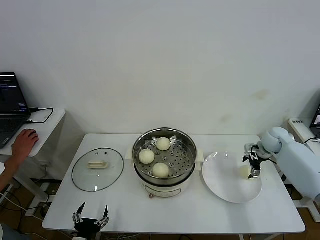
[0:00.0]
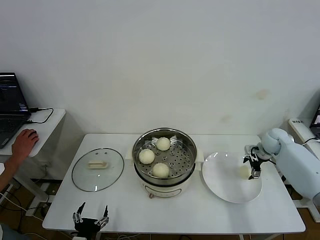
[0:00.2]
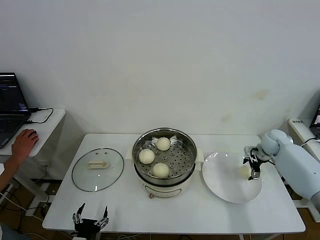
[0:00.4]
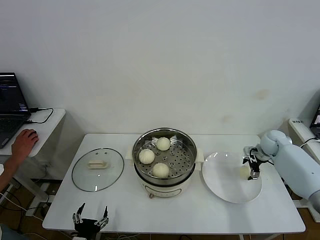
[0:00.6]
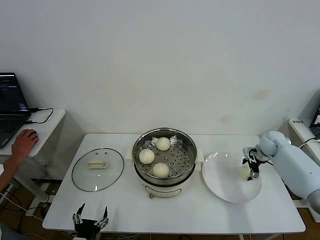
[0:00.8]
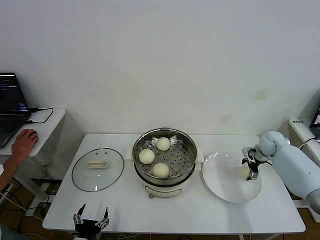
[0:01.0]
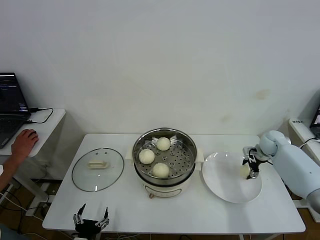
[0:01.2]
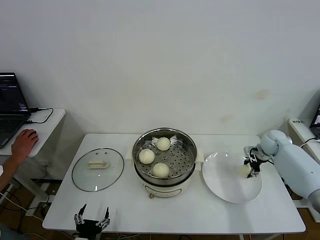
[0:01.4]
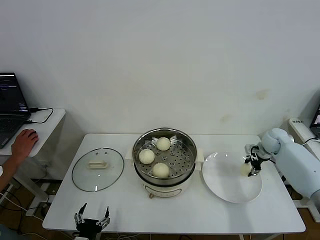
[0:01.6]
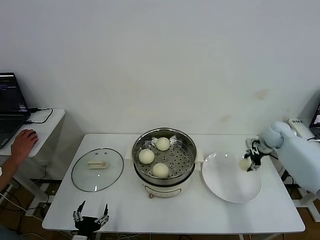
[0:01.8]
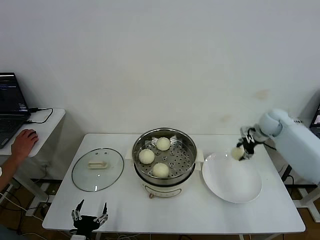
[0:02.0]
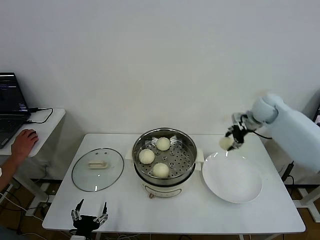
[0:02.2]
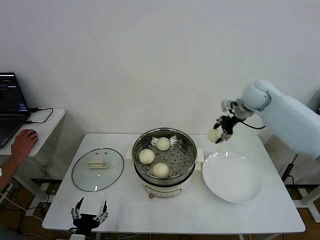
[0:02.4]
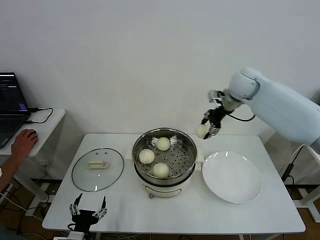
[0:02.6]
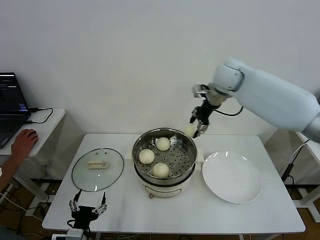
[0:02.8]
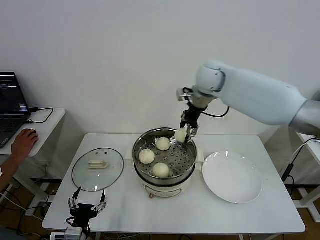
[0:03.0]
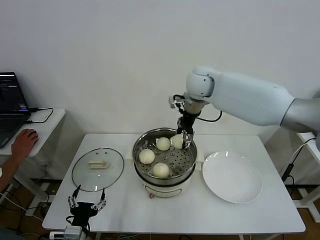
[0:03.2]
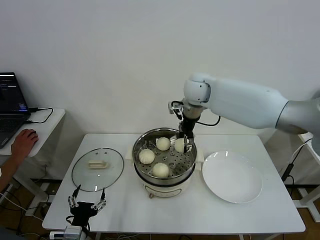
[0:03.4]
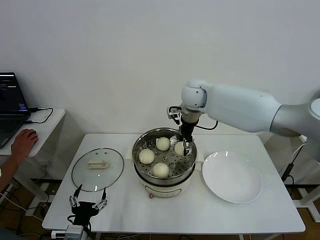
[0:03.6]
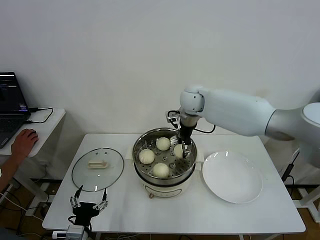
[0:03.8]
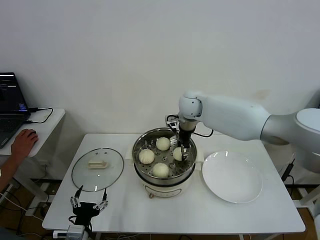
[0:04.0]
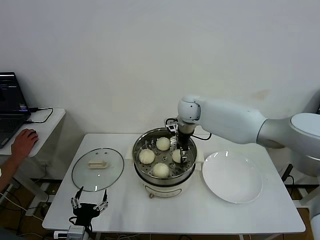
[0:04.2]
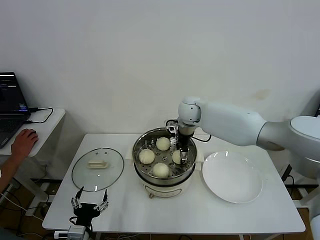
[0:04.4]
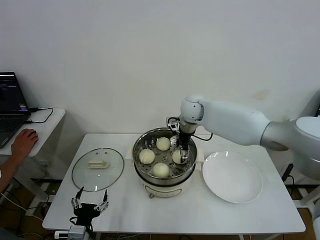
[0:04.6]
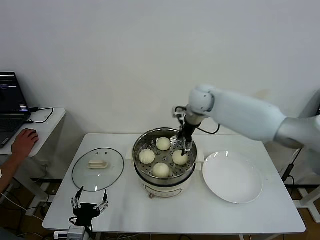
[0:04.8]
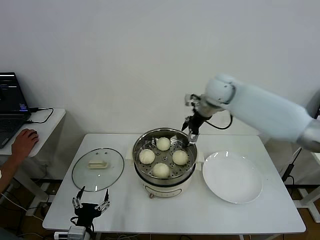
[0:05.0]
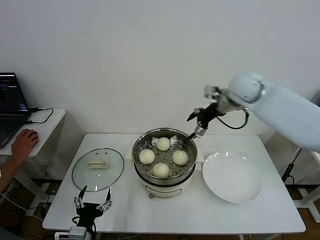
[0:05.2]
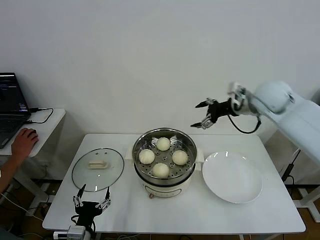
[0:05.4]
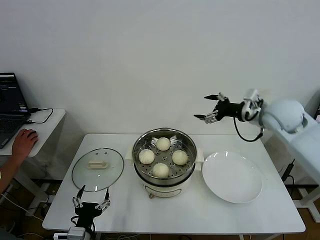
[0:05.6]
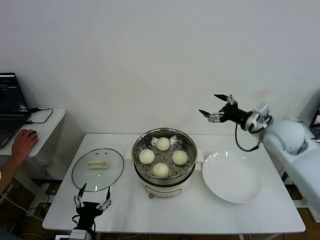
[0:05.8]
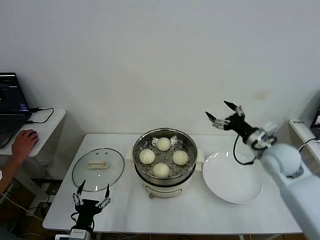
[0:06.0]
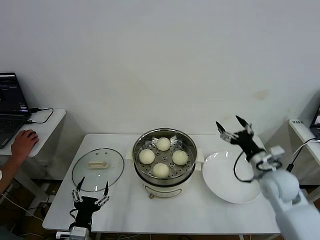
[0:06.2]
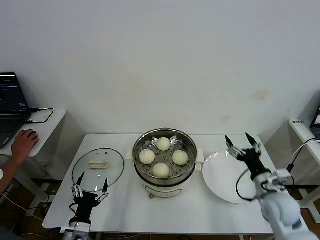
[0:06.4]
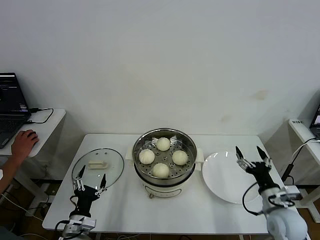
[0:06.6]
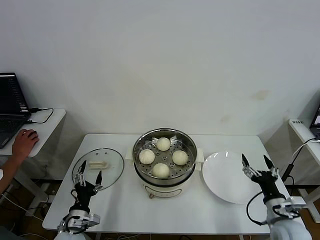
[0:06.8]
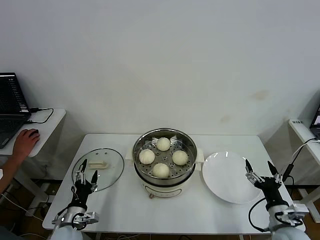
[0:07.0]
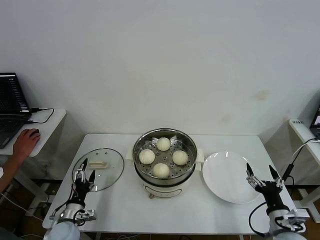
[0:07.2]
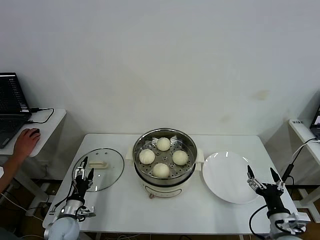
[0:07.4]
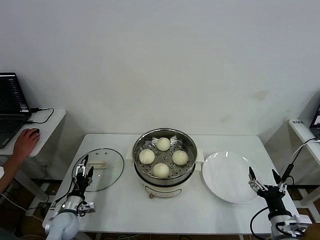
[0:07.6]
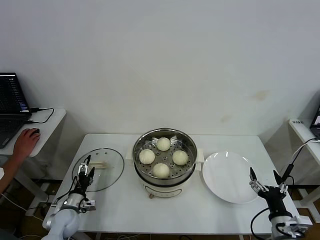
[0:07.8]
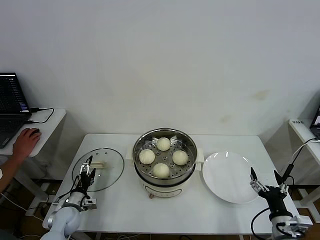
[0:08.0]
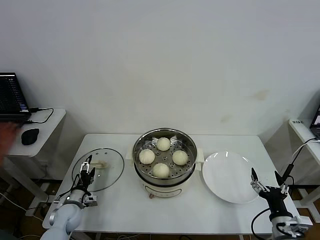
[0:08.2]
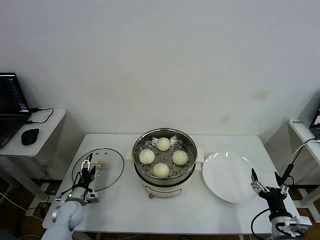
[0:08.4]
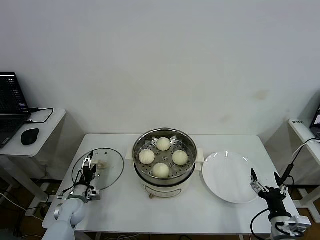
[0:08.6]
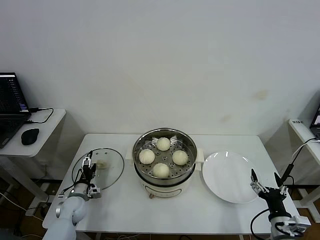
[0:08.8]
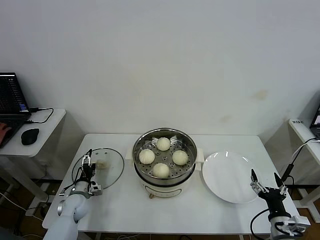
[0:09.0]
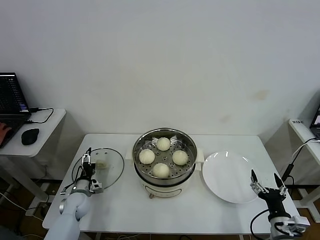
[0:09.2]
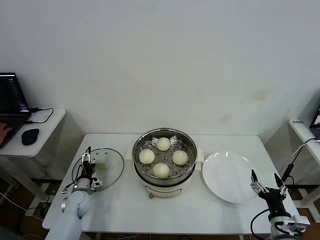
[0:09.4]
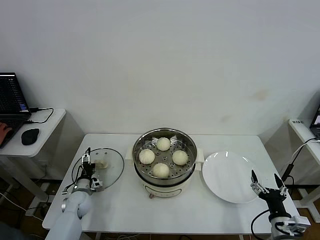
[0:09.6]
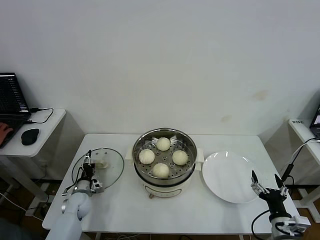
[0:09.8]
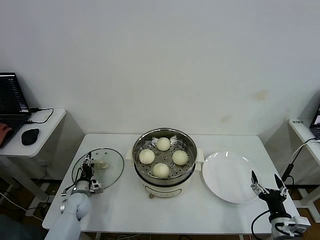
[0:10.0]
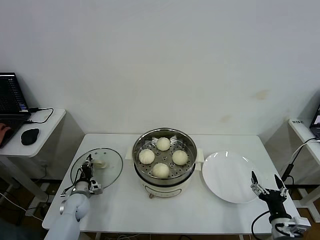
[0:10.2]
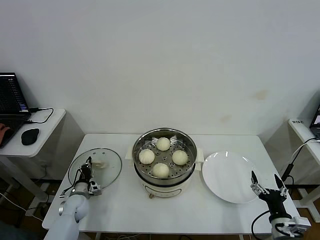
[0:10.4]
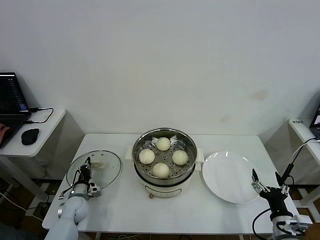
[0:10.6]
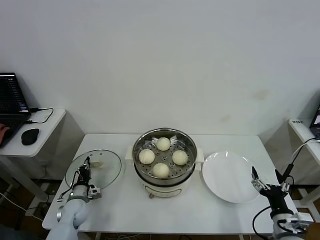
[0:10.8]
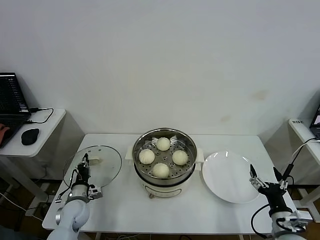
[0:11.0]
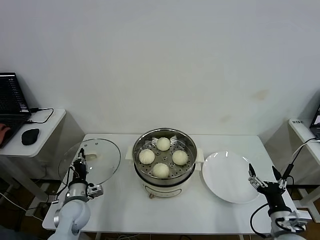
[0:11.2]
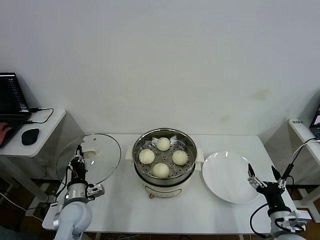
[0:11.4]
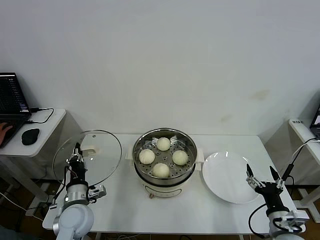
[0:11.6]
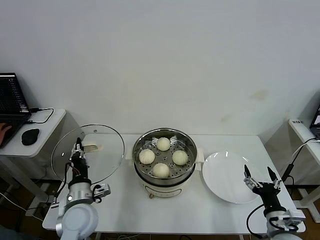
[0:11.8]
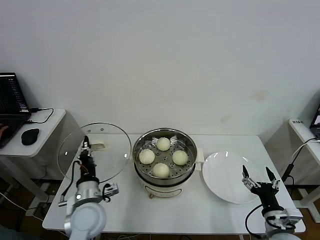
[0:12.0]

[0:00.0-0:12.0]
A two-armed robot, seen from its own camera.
Step, 0:01.6 to 0:04.4: Place the baozi on the steamer with right gripper.
Step, 0:04.8 to 0:10.6: Grasp the pot lid with left gripper.
0:00.0 to 0:01.6: The right gripper closes its fingers.
0:01.6 to 0:03.0: The right gripper shifts roughly 40 cm to the left and upward.
0:03.0 to 0:04.4: The right gripper is displaced downward by roughly 15 cm.
0:04.4 to 0:06.0: The right gripper travels to the right and backward by about 30 cm, and opens its fingers.
0:06.0 to 0:07.6: The left gripper travels forward, to the left and downward by about 20 cm. The right gripper shifts some 30 cm backward and downward.
0:07.6 to 0:09.0: The left gripper shifts about 10 cm forward.
0:09.0 to 0:10.4: The left gripper closes.
0:10.4 to 0:12.0: The left gripper travels upward, to the right and backward by roughly 25 cm.

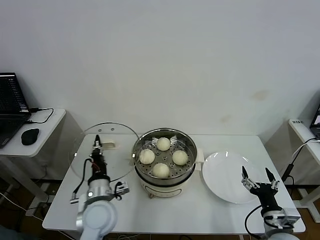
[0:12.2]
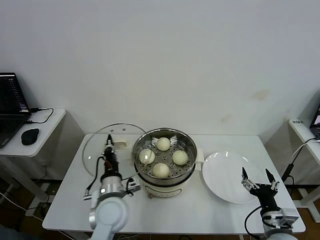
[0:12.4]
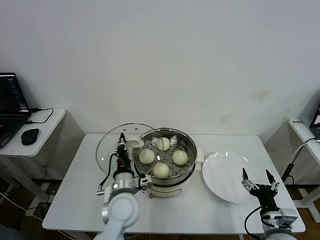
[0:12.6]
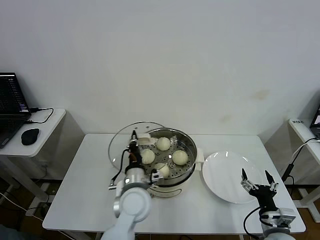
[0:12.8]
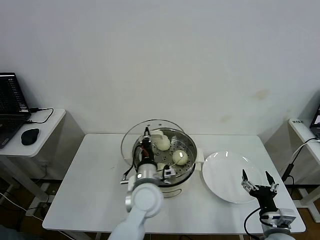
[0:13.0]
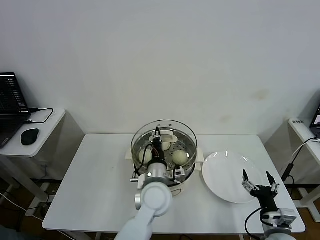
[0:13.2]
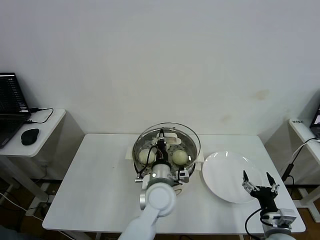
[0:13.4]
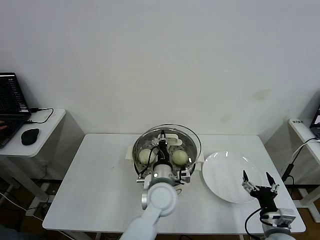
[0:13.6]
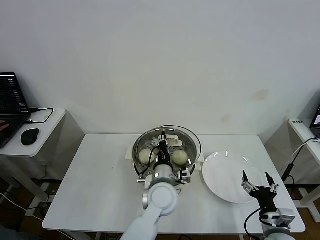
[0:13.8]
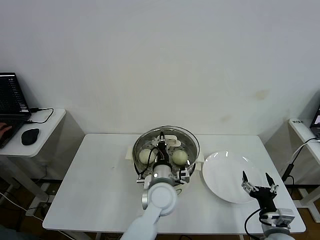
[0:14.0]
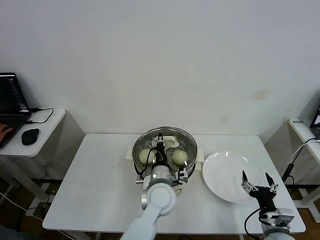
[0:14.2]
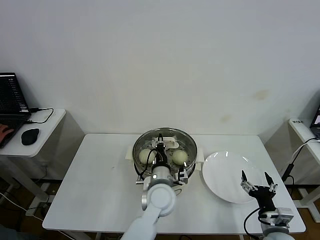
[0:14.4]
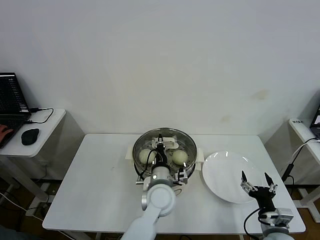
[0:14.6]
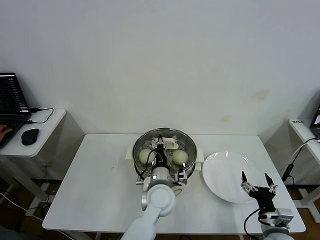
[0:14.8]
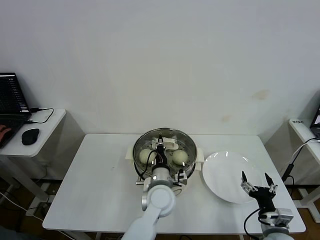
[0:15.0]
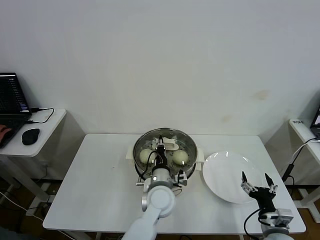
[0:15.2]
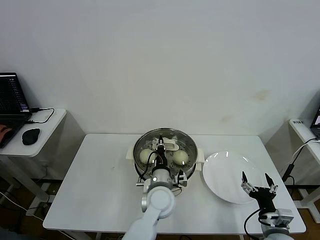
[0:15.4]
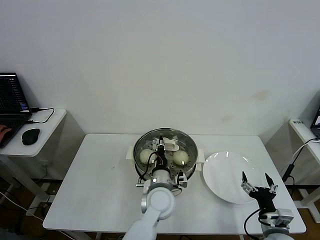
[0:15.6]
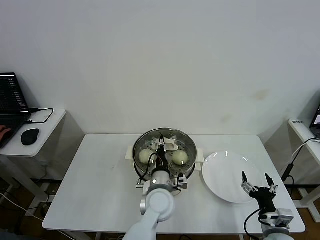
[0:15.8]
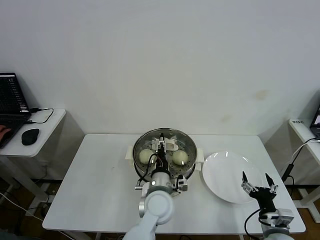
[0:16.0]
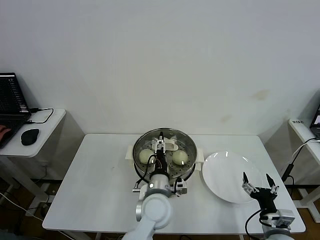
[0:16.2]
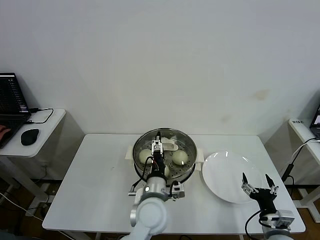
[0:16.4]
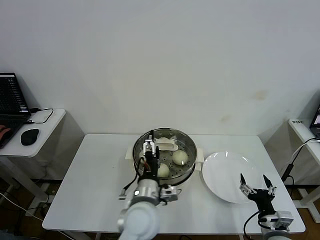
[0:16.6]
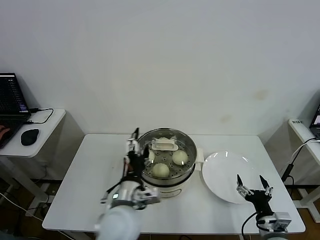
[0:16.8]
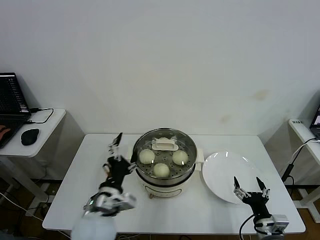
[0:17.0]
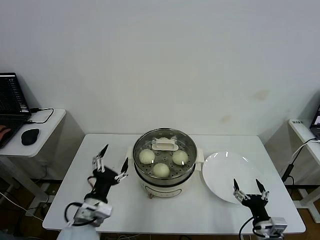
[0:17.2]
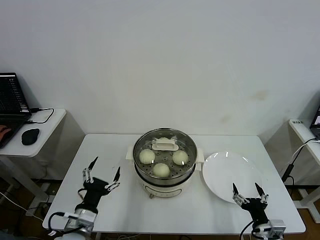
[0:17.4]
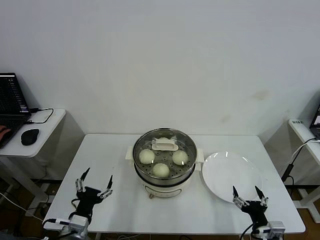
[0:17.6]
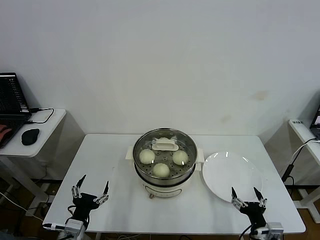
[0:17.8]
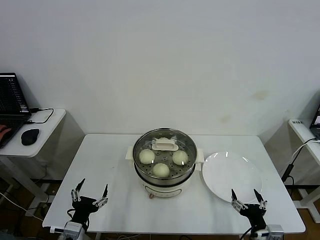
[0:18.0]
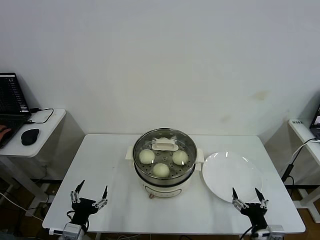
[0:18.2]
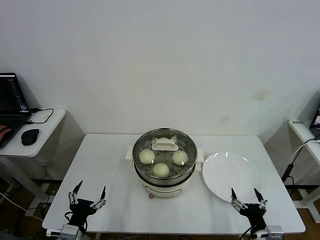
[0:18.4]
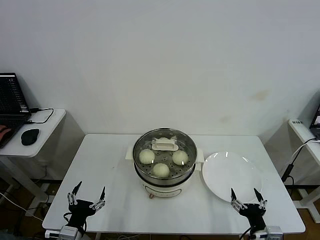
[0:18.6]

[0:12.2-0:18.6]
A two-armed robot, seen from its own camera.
Step, 0:12.2 to 0:15.8: Place the pot lid on the steamer with left gripper.
0:12.2 to 0:13.8: The left gripper travels to the right by some 20 cm.
0:13.8 to 0:15.4: The grippers make only small movements.
0:15.4 to 0:17.0: The left gripper moves to the left, backward and upward, approximately 20 cm, and opens its fingers.
0:17.0 to 0:18.6: The left gripper travels to the left, downward and backward by roughly 20 cm.

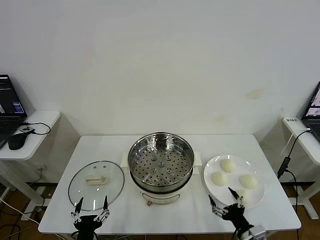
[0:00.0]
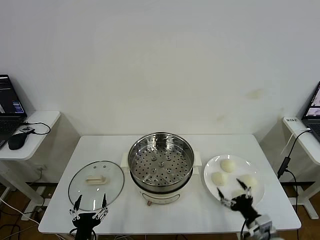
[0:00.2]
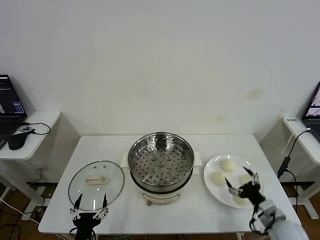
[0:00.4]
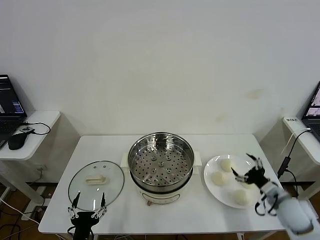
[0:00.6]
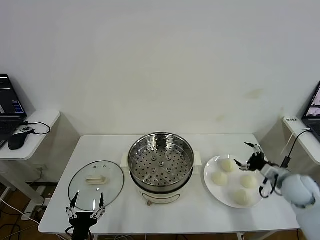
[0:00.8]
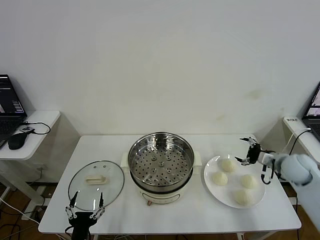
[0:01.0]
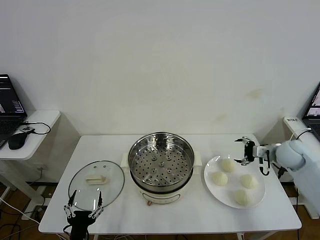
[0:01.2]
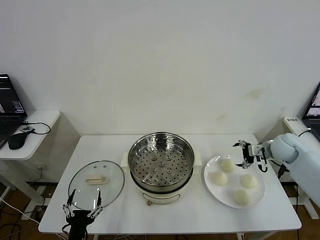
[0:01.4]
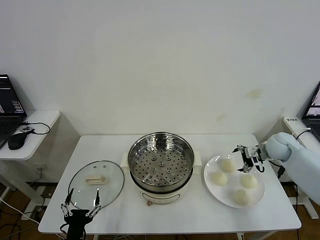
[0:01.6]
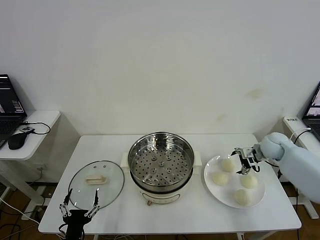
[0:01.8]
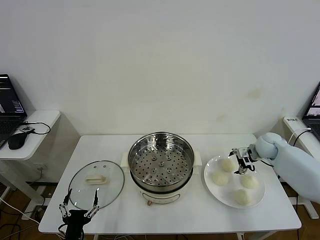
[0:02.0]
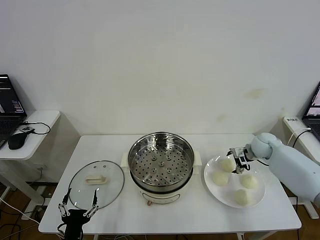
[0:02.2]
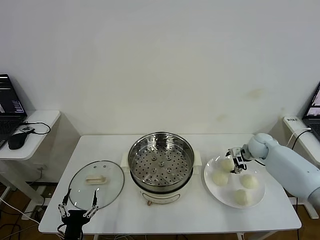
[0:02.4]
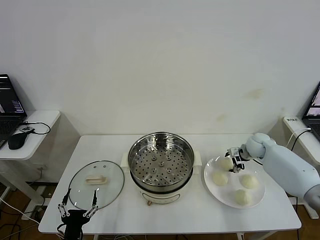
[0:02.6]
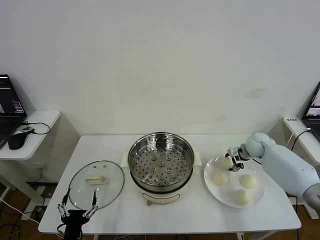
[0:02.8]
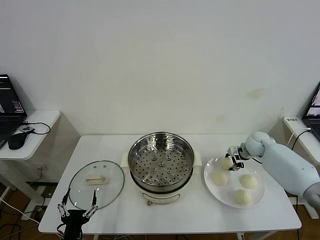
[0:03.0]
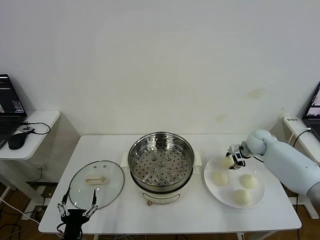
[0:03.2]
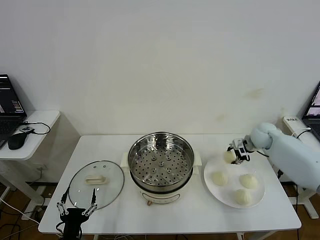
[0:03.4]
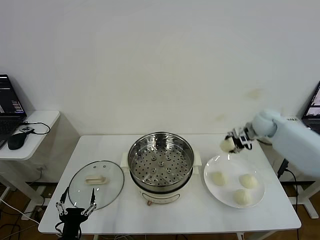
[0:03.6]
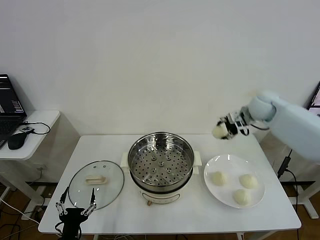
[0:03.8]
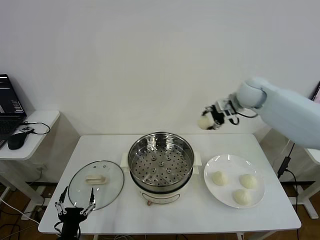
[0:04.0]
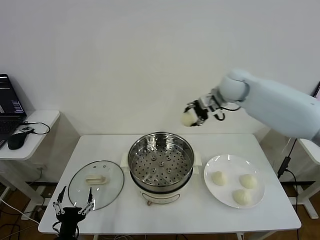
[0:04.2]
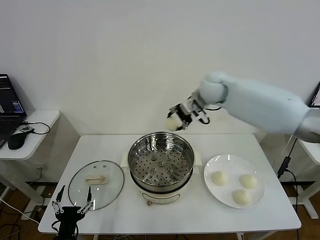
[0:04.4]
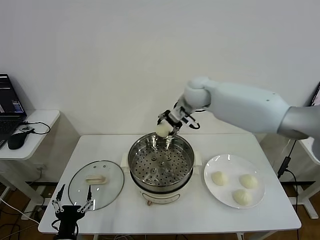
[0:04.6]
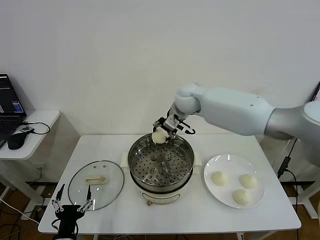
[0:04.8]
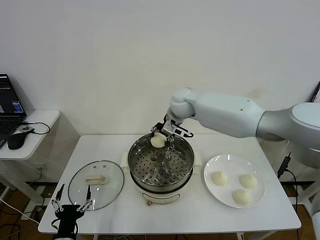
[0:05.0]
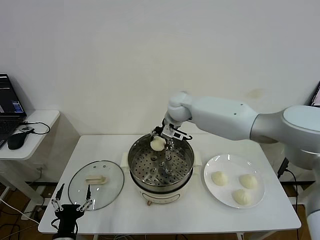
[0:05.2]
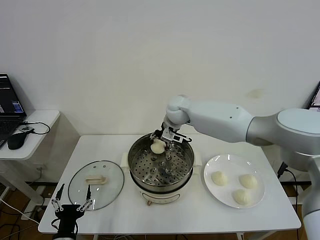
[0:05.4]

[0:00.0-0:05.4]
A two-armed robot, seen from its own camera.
Step, 0:00.0 to 0:03.0: Grasp the baozi in the plate with right gripper.
0:01.4 to 0:02.8: The right gripper goes some 10 cm forward and downward, and closes up.
0:02.8 to 0:04.0: The right gripper heads upward and to the left, covering about 25 cm.
0:04.0 to 0:05.4: The right gripper goes roughly 20 cm to the left and downward.
